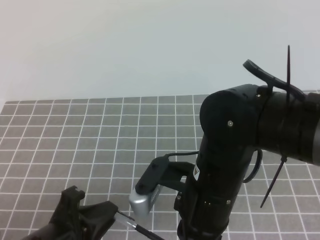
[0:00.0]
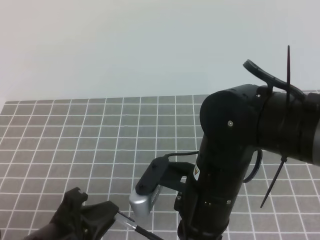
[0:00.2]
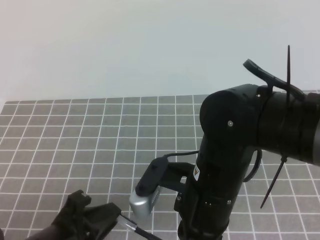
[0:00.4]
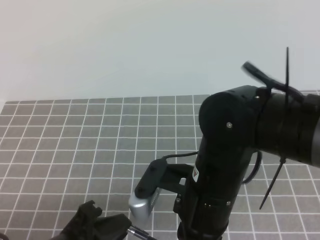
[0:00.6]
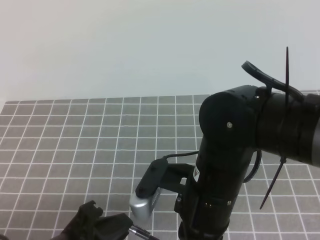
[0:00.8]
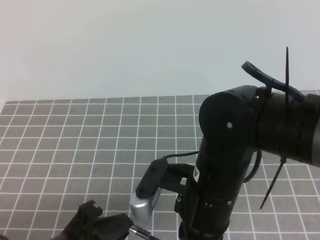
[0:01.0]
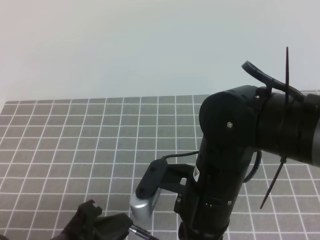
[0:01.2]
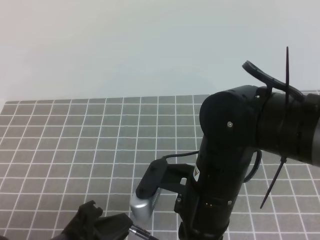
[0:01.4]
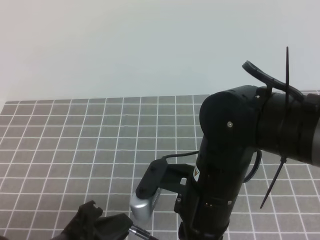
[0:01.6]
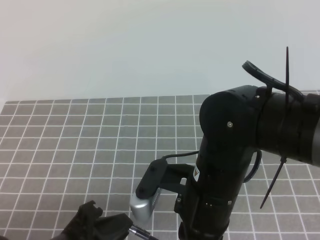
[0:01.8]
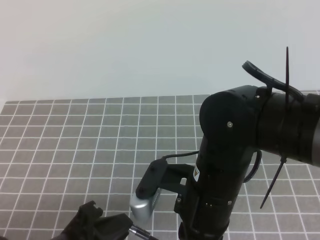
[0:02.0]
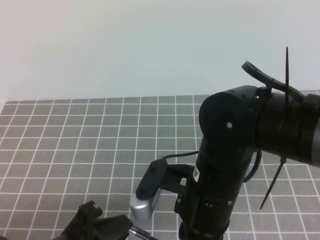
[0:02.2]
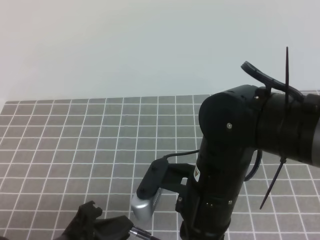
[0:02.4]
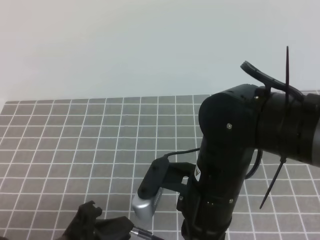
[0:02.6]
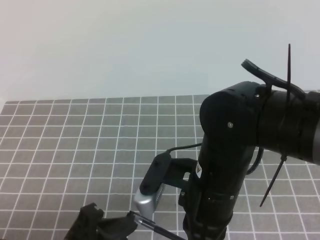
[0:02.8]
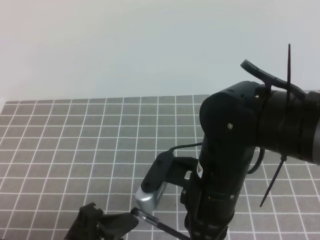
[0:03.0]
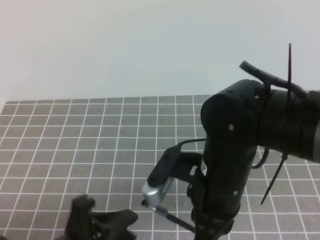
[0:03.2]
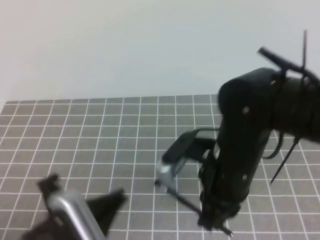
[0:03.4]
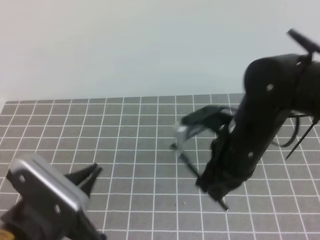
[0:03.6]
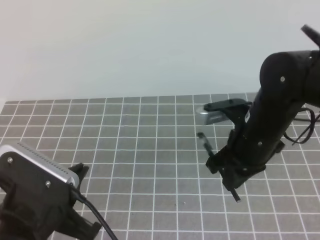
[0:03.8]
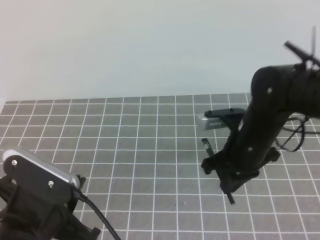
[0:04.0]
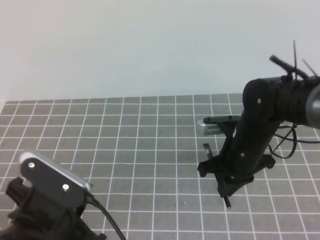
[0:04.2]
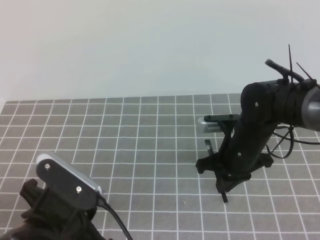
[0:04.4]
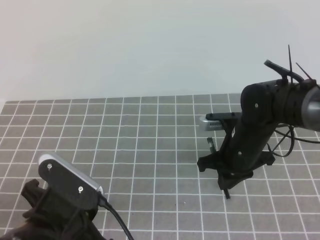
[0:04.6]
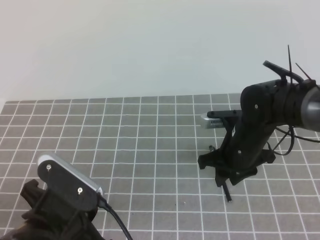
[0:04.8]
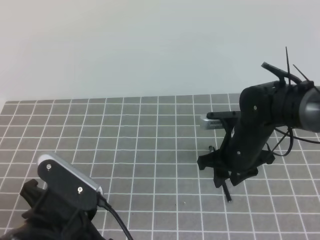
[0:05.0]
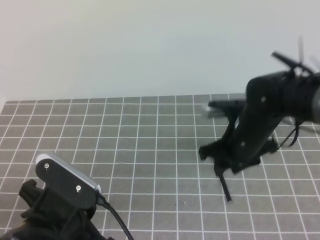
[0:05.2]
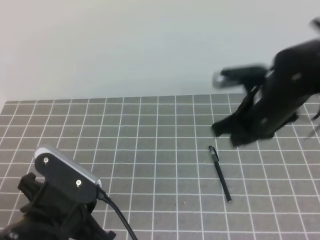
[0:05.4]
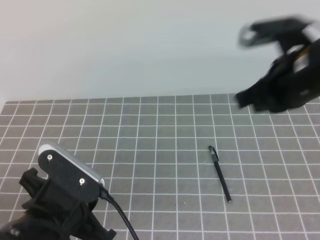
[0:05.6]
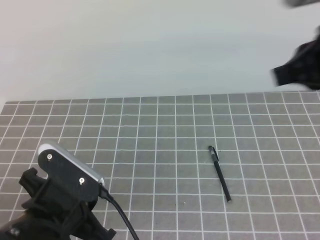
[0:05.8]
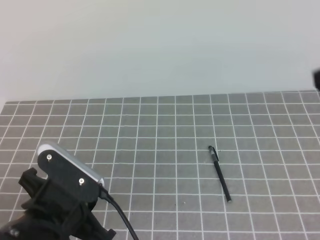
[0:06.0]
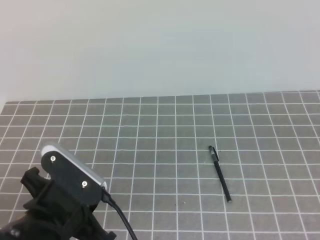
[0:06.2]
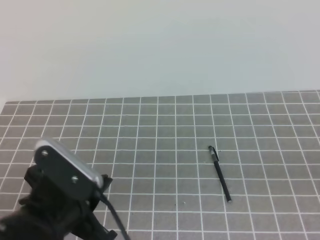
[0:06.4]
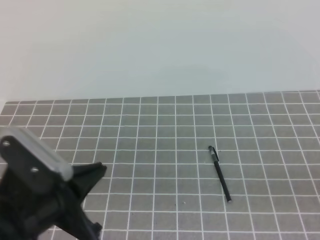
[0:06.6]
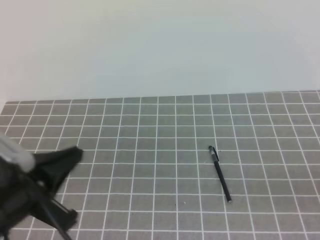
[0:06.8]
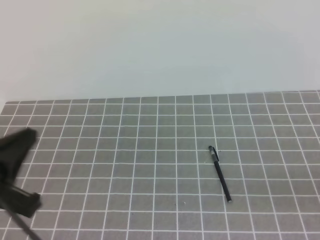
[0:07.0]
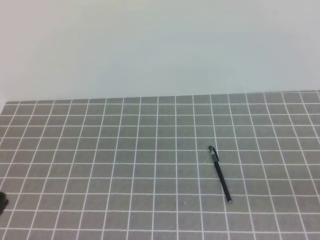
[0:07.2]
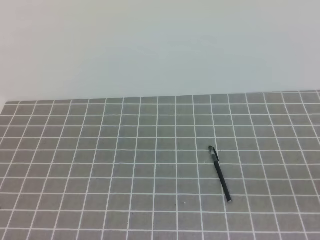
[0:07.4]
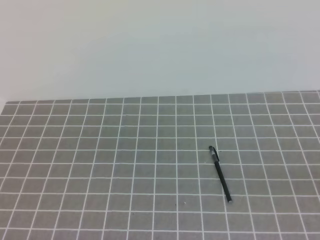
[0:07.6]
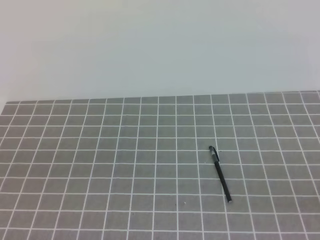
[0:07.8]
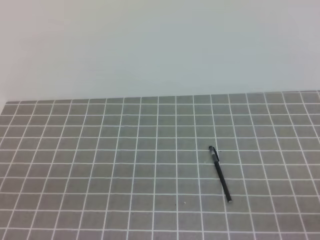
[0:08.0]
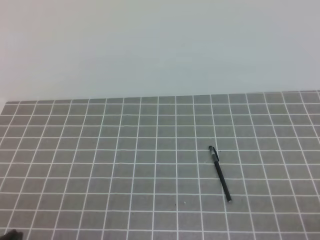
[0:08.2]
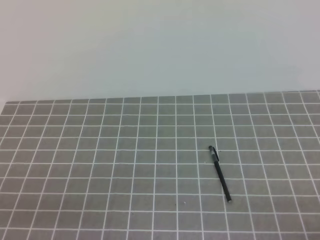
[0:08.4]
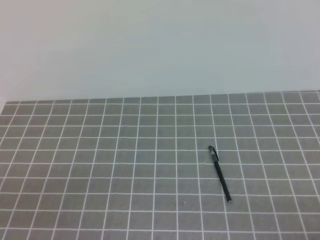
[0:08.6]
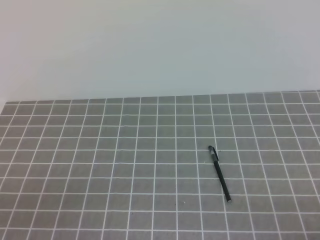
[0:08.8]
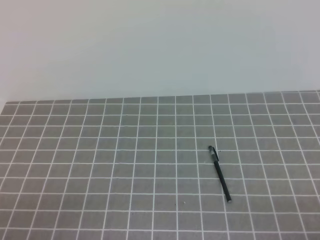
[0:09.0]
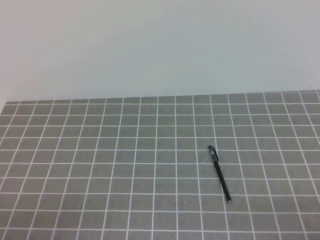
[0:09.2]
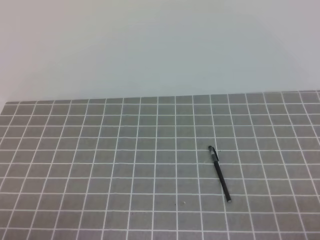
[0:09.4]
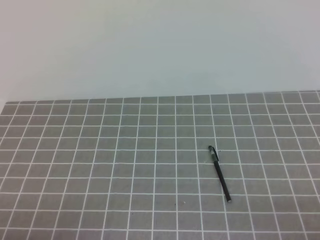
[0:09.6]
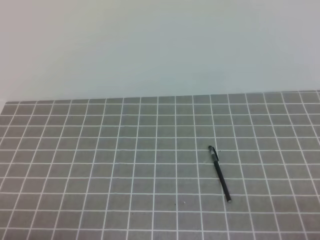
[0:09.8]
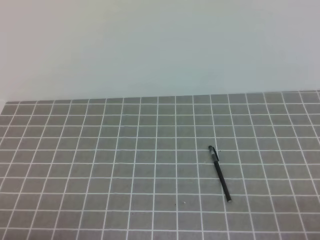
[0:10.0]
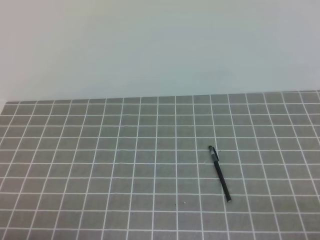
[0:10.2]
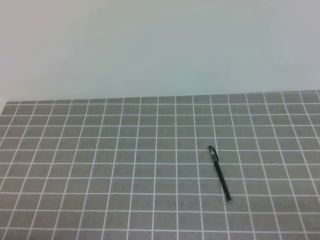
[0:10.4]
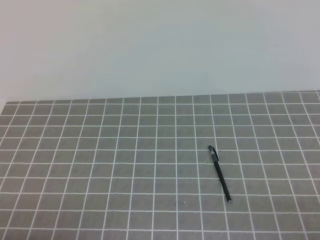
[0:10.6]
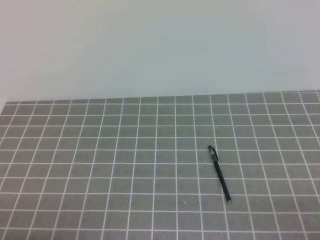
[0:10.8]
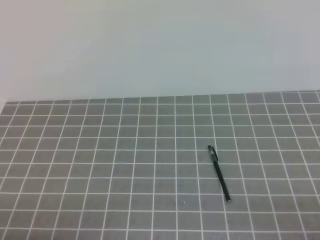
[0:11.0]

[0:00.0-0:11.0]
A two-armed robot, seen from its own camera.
Task of the whole recording: on the grey tablecloth, hold the pen cap in one hand and the pen in the other, then cover the pen cap.
Step, 0:00.0 to 0:11.0: Put the cap on the pen.
0:00.0 to 0:01.6: The grippers move only a little.
0:01.6 to 0:03.2: The left gripper opens.
0:03.2 to 0:04.8: The right gripper shifts approximately 15 cm forward, downward and to the right, and opens up. The left gripper closes.
0:04.8 to 0:06.2: The right gripper moves upward, backward and to the right, about 30 cm, and closes up.
0:06.2 to 0:07.8: The right gripper is displaced downward, backward and to the right by approximately 15 cm. Meanwhile the left gripper moves to the left, upward and backward, approximately 15 cm.
